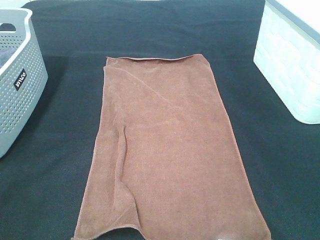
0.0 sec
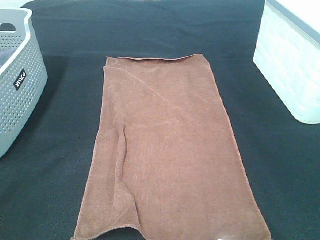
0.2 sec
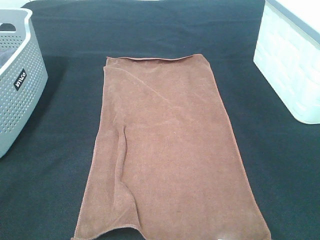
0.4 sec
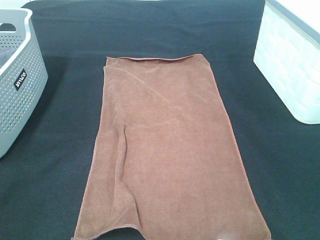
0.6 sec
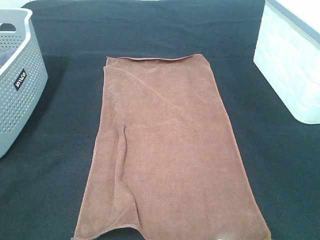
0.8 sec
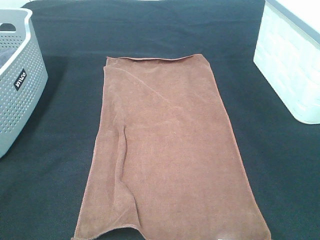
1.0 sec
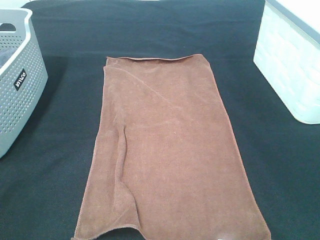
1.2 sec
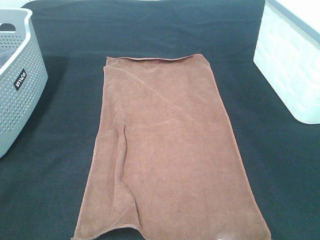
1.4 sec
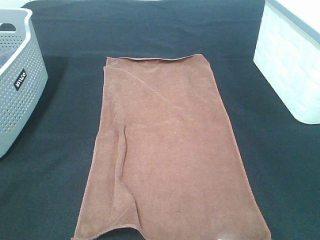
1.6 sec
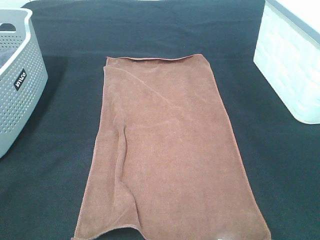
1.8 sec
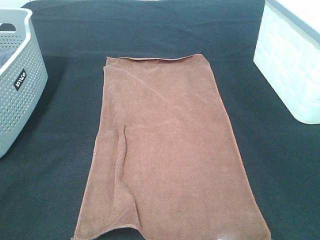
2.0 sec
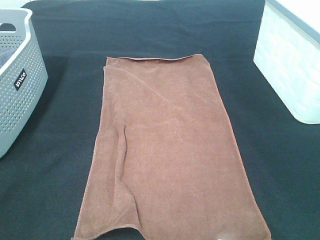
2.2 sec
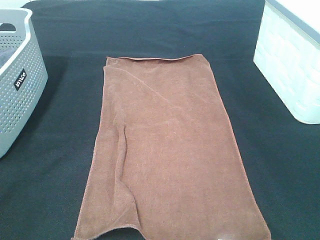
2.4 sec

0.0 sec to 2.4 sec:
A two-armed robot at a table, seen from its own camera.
Task of the whole recording: Remove the towel and place it.
1.2 sec to 2.4 sec: Neither gripper changes place.

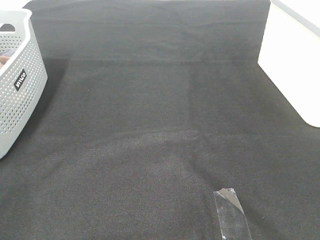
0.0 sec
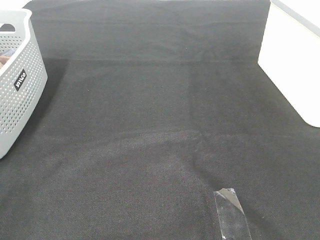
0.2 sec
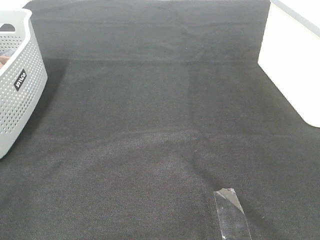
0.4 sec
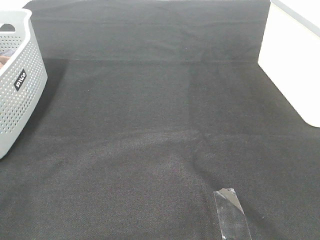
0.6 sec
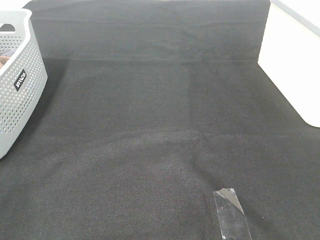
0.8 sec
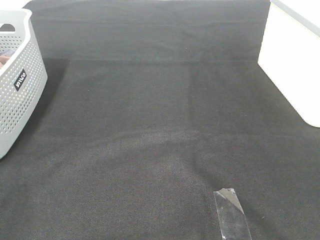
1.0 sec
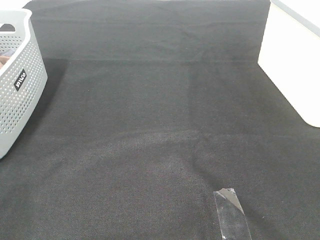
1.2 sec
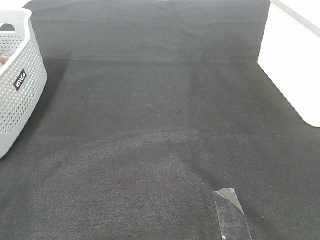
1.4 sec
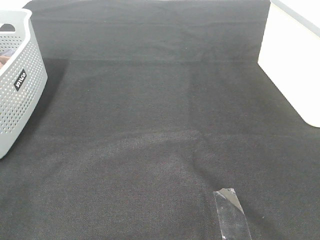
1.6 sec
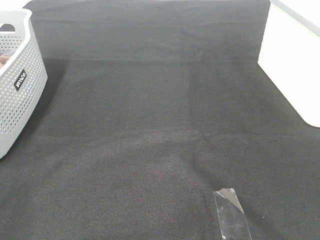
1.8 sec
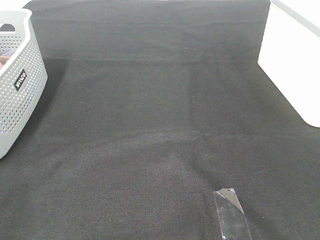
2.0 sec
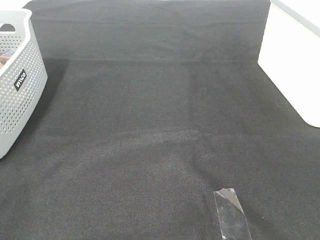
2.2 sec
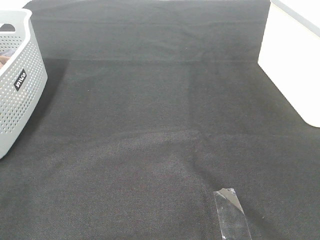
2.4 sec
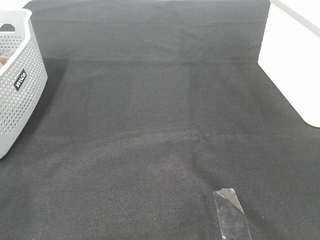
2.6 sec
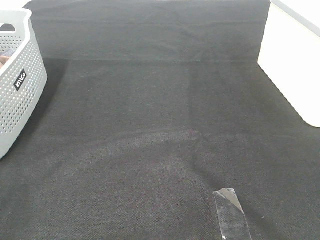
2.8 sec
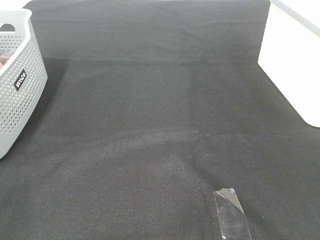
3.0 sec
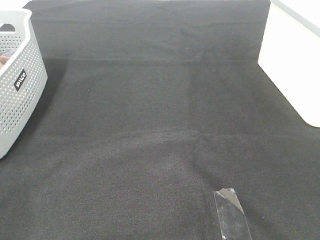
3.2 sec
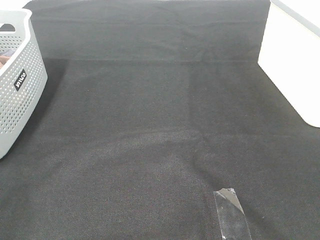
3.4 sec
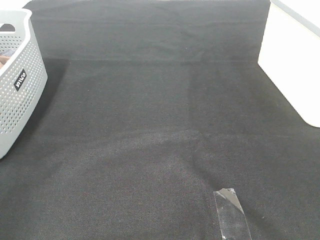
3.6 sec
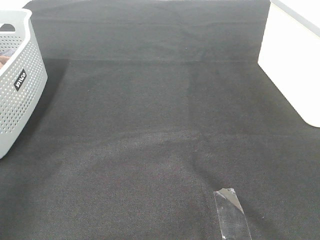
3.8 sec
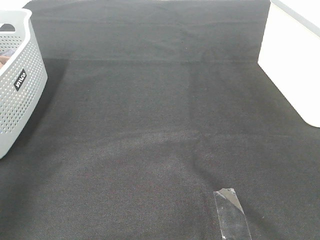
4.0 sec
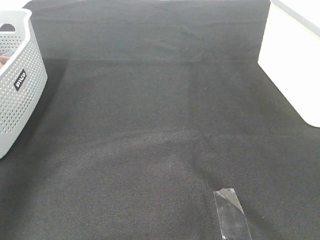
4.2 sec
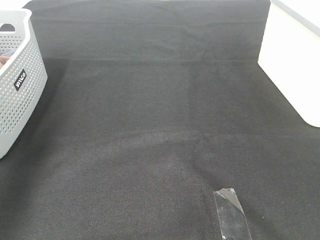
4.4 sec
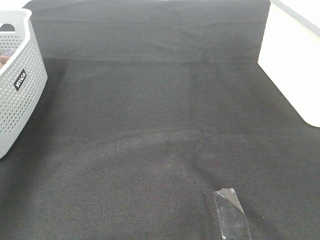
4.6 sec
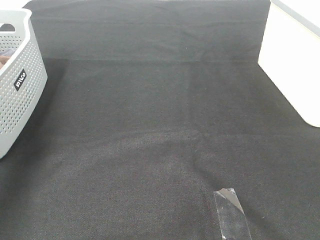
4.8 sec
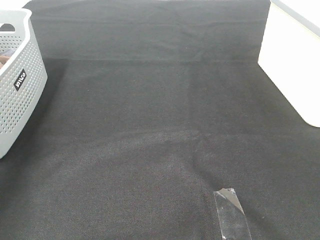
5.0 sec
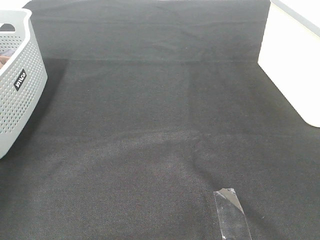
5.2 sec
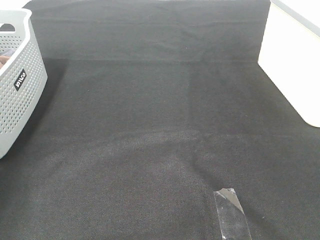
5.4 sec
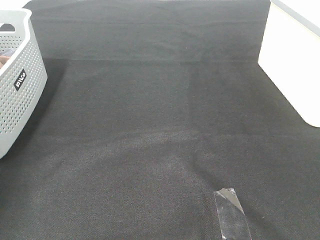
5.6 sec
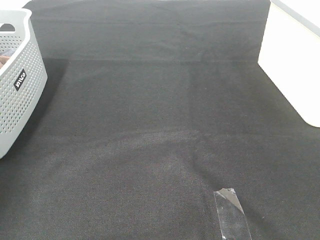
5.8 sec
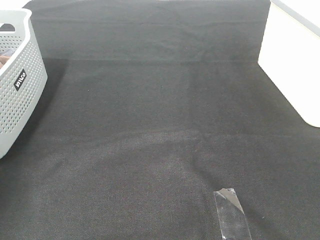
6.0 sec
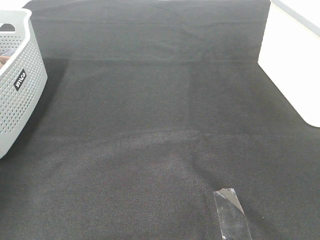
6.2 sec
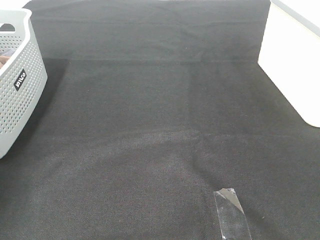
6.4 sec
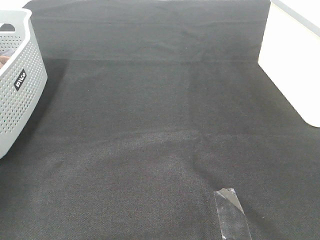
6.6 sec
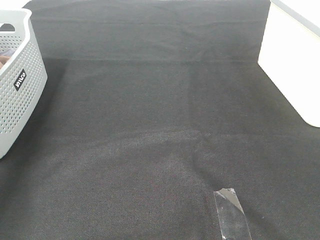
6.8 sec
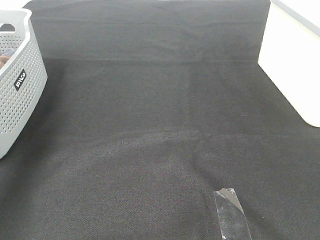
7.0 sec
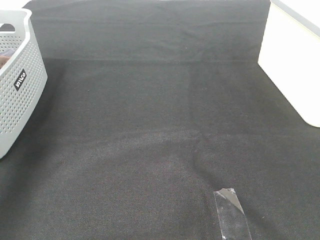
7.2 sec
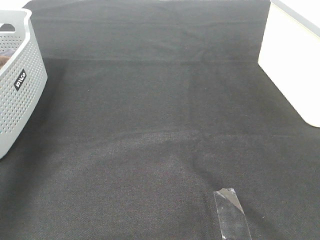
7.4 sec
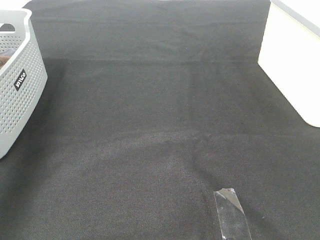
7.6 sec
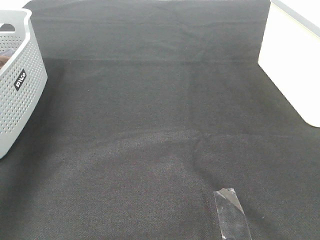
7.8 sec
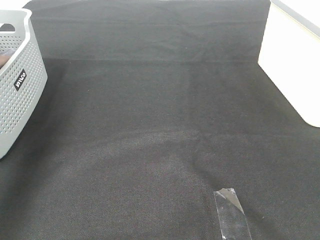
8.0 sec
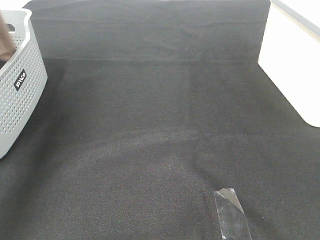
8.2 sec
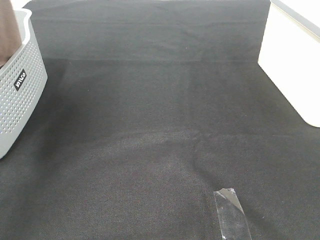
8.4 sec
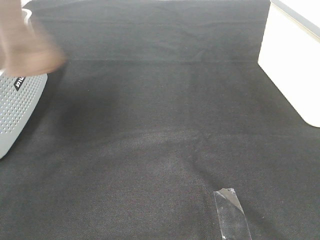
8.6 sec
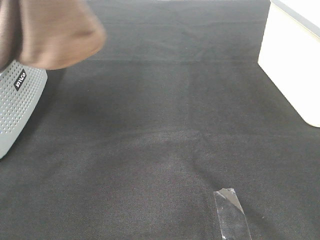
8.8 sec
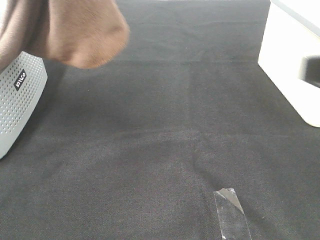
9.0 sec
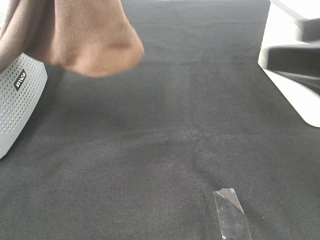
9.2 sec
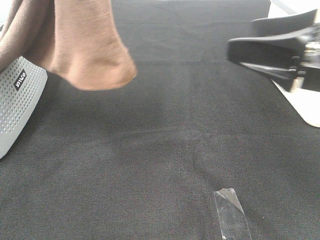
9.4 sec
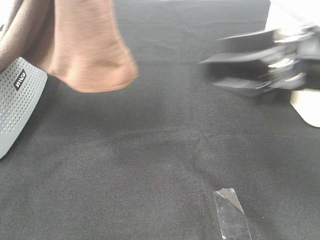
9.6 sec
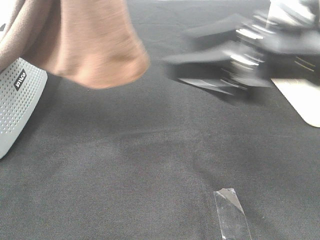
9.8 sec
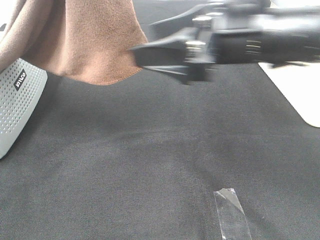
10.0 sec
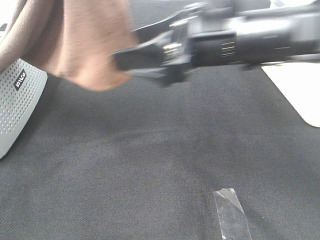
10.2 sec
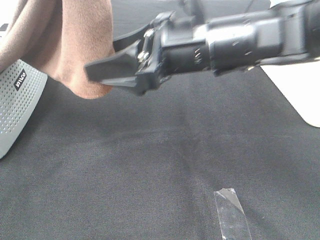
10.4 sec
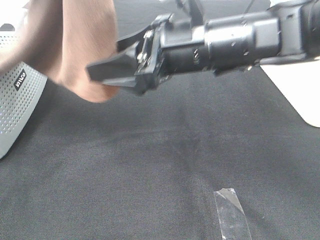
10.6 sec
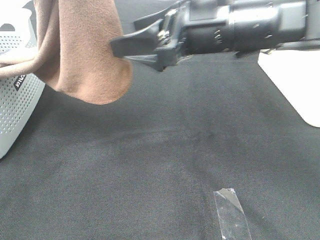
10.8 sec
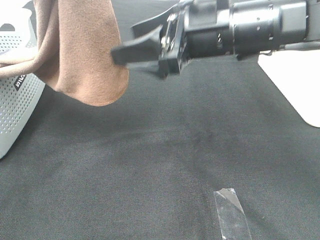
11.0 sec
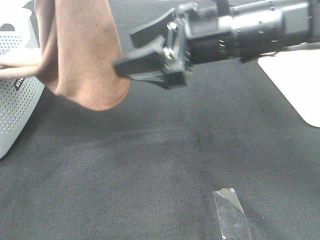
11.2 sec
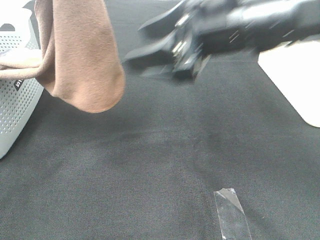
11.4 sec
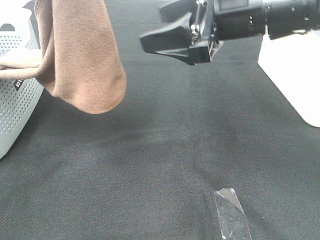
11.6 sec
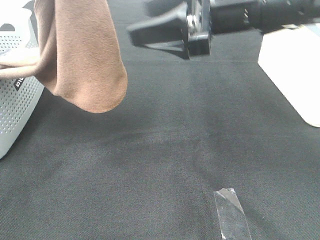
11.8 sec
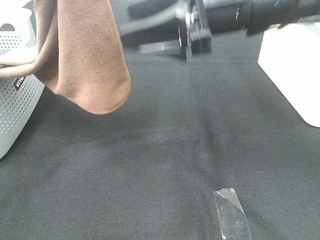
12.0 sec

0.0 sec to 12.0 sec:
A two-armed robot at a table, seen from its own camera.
Task of the whole recording: Remove the towel and place it.
0.0 sec to 3.0 sec: Both grippers stay about where they are.
3.0 sec to 4.4 sec: The left gripper is displaced forward by about 30 cm.
4.4 sec to 6.0 sec: The left gripper moves downward and forward, some 25 cm.
6.0 sec to 7.6 sec: The left gripper goes approximately 25 cm upward, and closes.
7.6 sec to 9.0 sec: The left gripper heads to the right and upward, covering some 20 cm. Meanwhile the right gripper goes roughly 10 cm forward.
9.0 sec to 10.4 sec: The right gripper goes some 25 cm to the left, forward and downward.
10.4 sec to 12.0 sec: The right gripper shifts by about 5 cm.

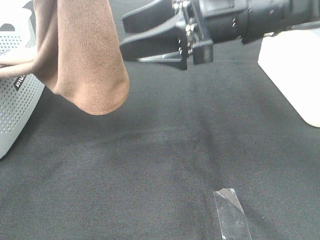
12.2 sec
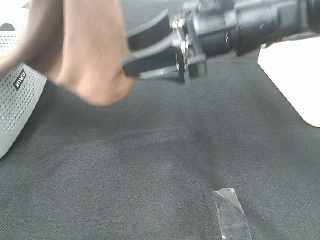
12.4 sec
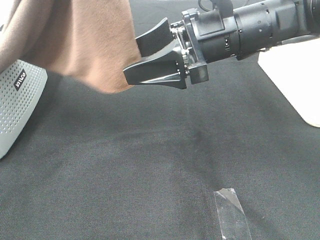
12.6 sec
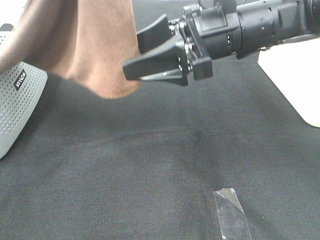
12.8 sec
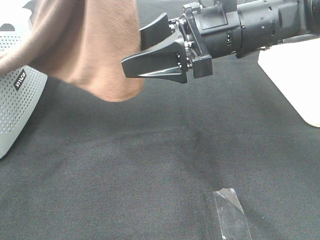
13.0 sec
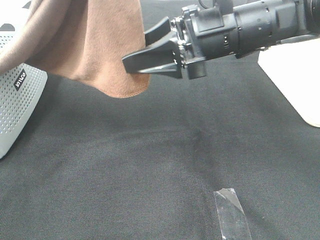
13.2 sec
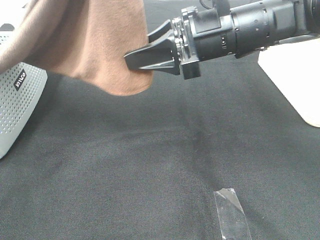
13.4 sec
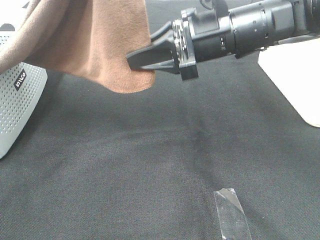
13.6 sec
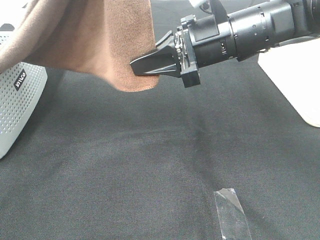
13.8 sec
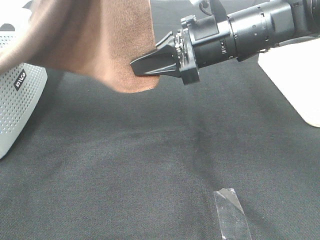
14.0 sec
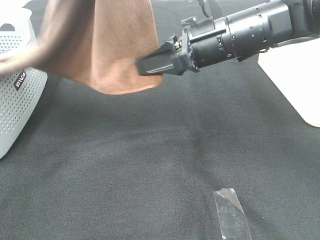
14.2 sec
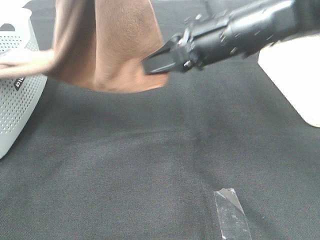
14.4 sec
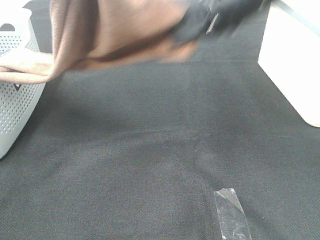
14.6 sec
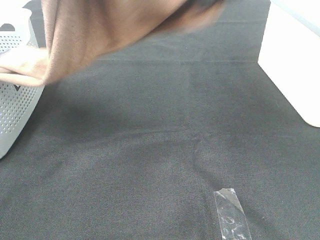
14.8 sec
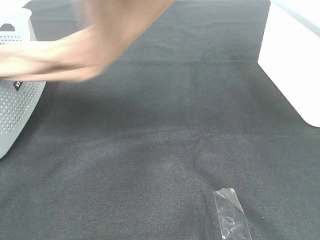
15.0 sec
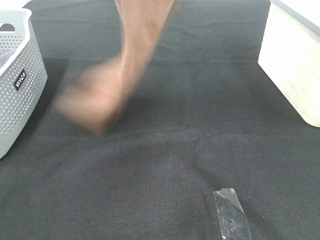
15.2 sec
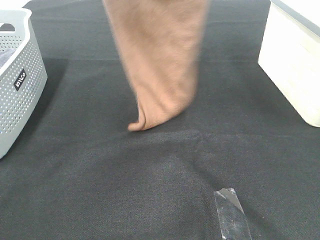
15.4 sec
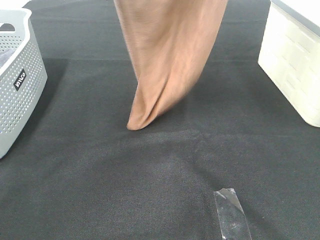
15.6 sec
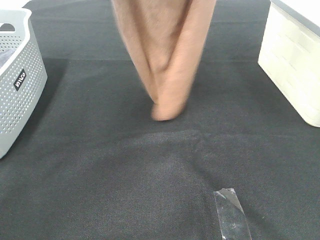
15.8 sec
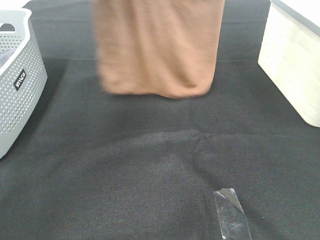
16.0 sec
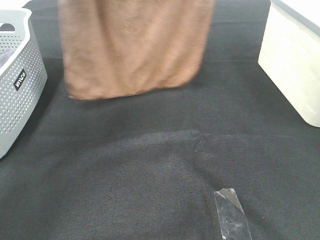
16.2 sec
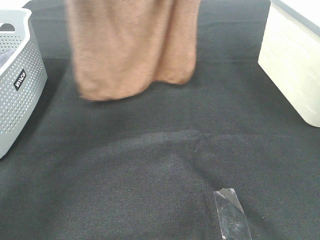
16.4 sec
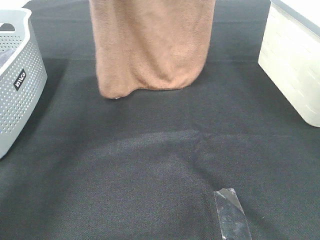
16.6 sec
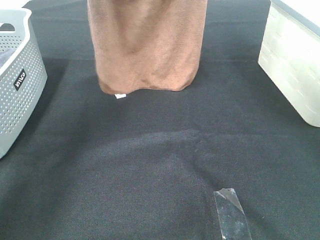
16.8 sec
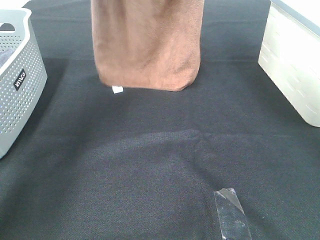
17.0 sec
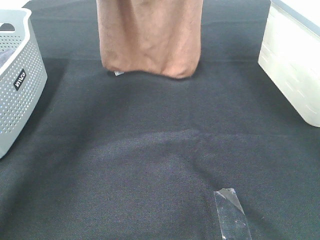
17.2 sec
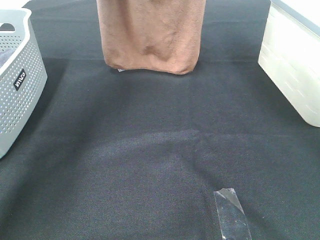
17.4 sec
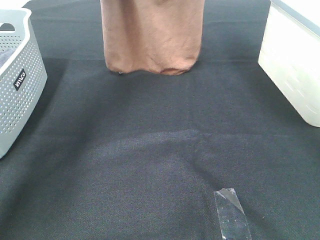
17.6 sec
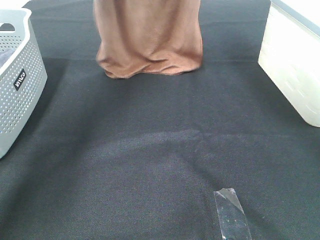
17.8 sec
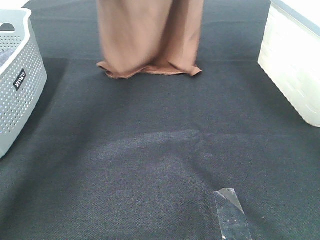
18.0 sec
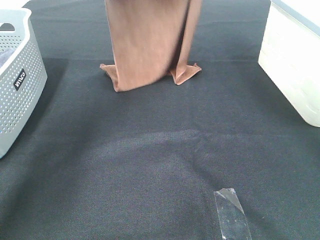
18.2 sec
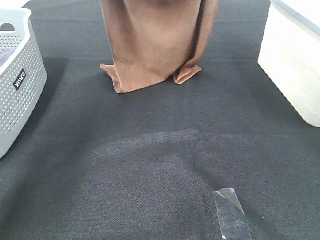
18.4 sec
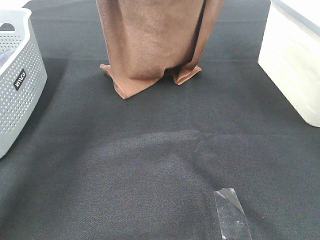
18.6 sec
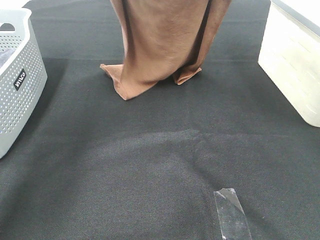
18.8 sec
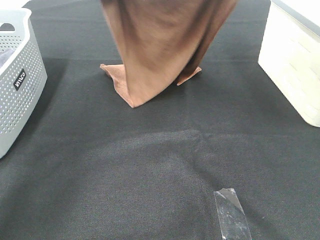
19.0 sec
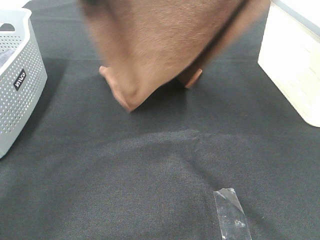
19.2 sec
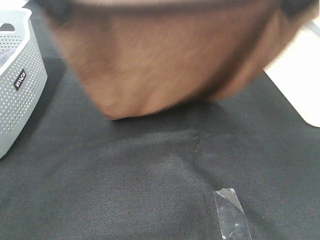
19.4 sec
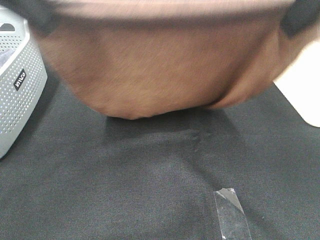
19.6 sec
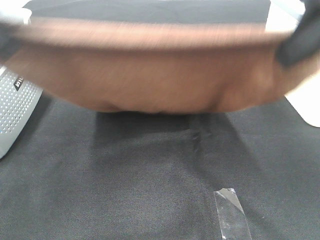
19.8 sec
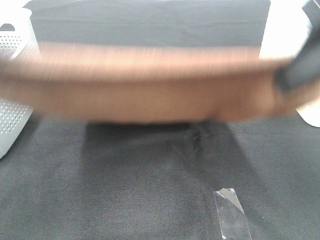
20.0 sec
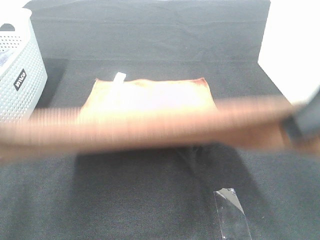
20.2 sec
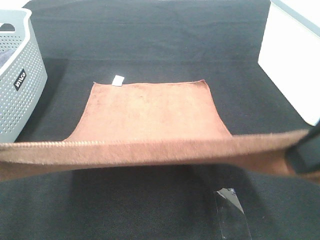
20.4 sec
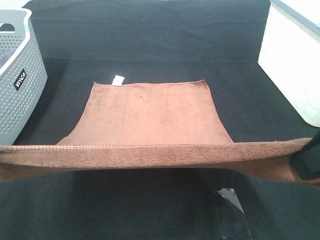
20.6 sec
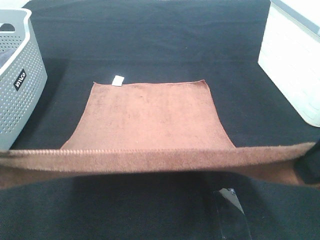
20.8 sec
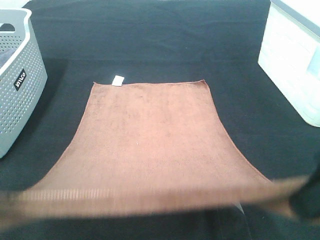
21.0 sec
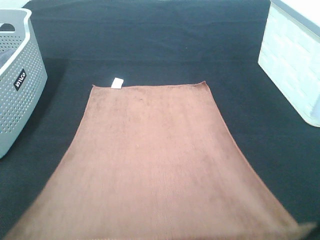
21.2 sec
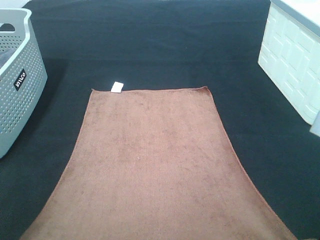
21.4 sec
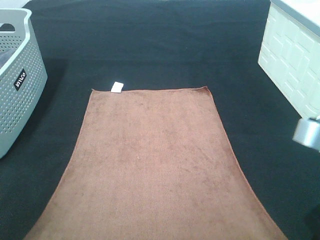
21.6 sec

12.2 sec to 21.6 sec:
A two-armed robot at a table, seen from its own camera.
Task of the whole recording: Remove the towel and place it.
Step, 13.2 sec to 18.6 sec: Left hand: spread the brown towel flat on the table.
Step, 13.2 sec to 18.6 sec: Right hand: spread the brown towel flat on the table.
12.2 sec to 13.8 sec: The right gripper closes.
13.8 sec to 15.4 sec: The right gripper moves upward, roughly 25 cm. Meanwhile the left gripper shifts about 5 cm forward.
15.4 sec to 17.0 sec: The right gripper is displaced forward by about 10 cm. Meanwhile the left gripper travels forward and downward by about 15 cm.
17.0 sec to 18.4 sec: The grippers both shift downward by about 5 cm.
18.4 sec to 20.0 sec: The two grippers go roughly 30 cm backward.
20.0 sec to 21.6 sec: Both grippers travel together downward and backward, roughly 15 cm.
